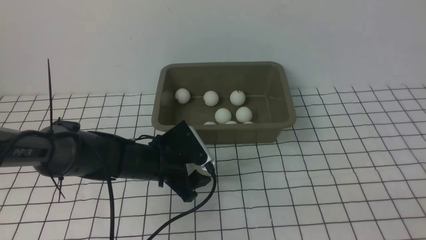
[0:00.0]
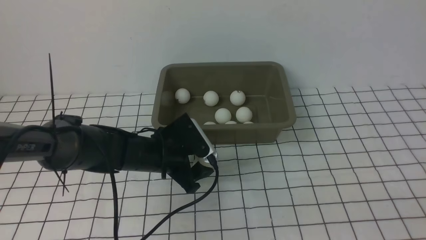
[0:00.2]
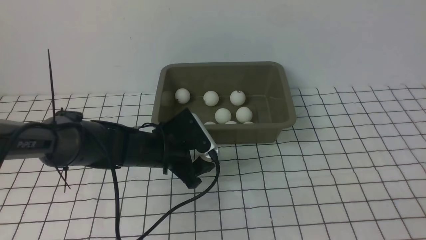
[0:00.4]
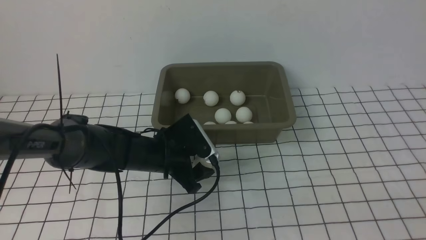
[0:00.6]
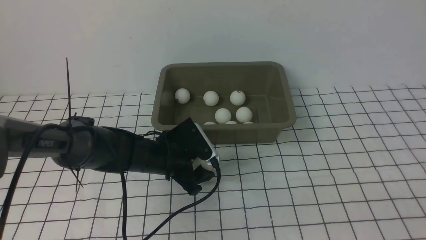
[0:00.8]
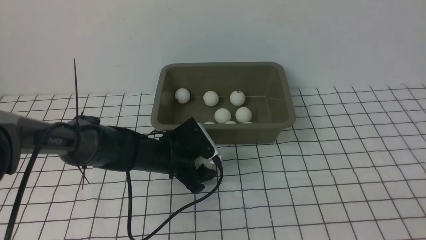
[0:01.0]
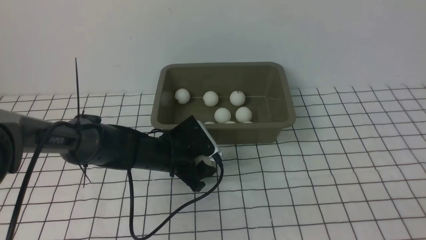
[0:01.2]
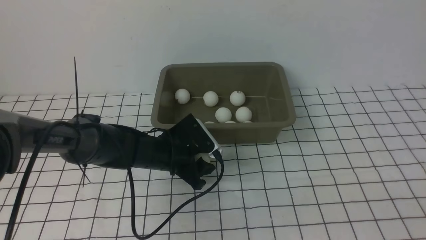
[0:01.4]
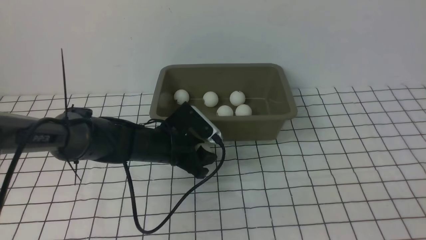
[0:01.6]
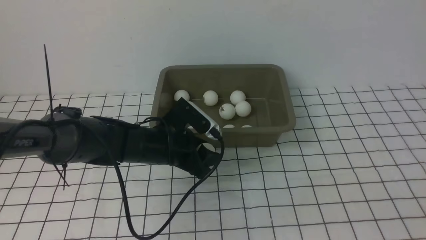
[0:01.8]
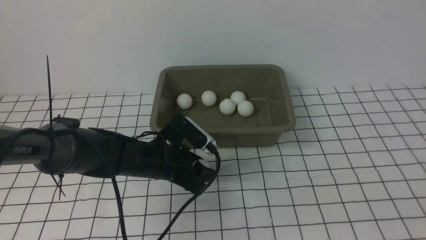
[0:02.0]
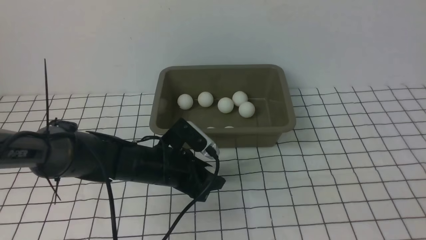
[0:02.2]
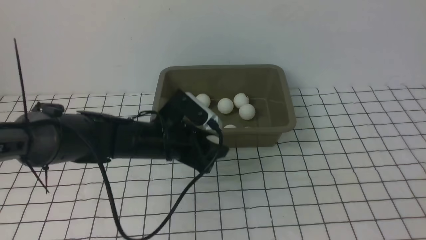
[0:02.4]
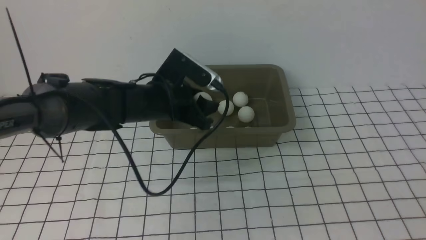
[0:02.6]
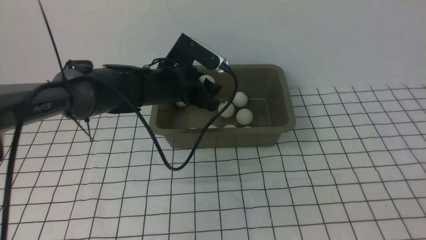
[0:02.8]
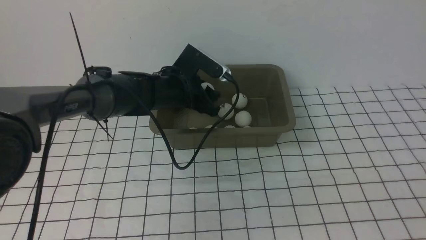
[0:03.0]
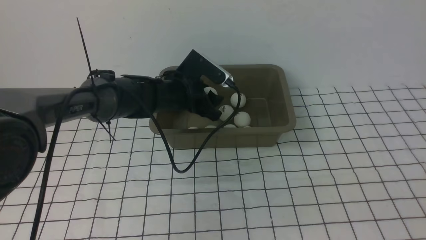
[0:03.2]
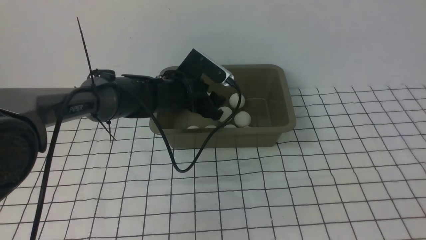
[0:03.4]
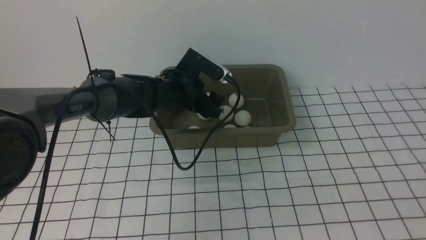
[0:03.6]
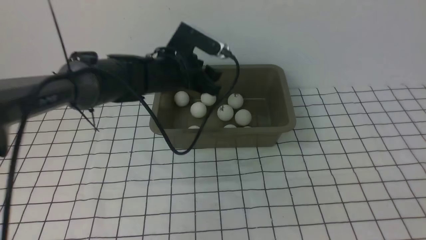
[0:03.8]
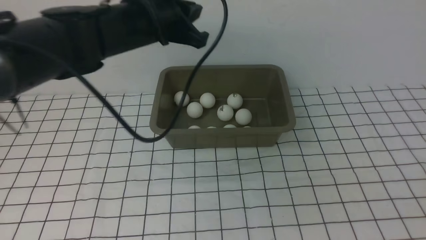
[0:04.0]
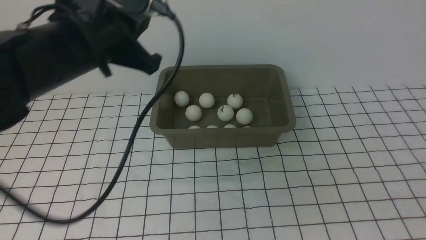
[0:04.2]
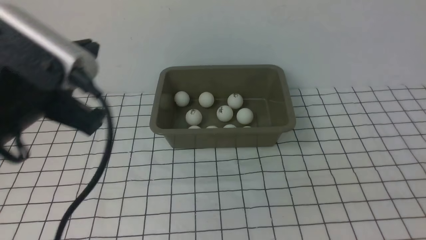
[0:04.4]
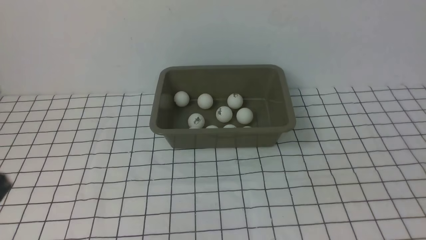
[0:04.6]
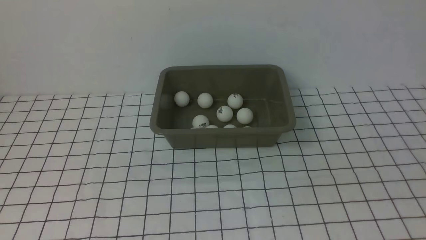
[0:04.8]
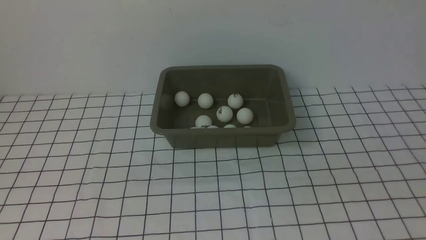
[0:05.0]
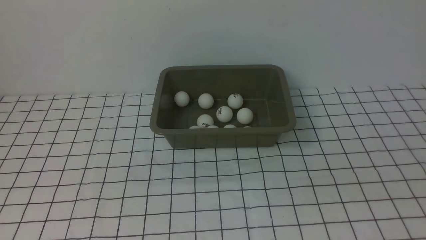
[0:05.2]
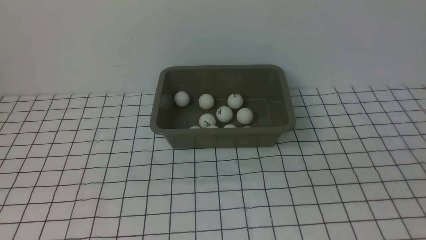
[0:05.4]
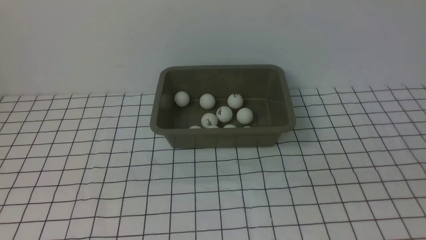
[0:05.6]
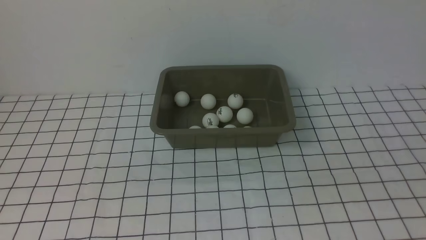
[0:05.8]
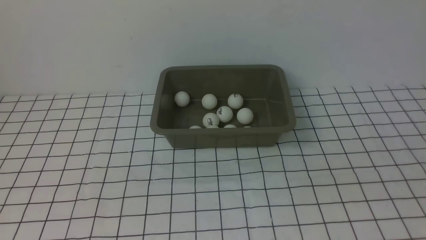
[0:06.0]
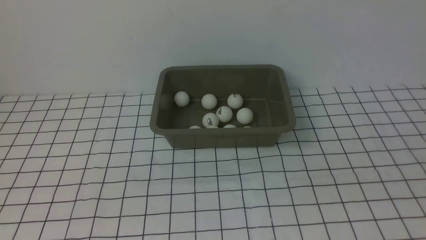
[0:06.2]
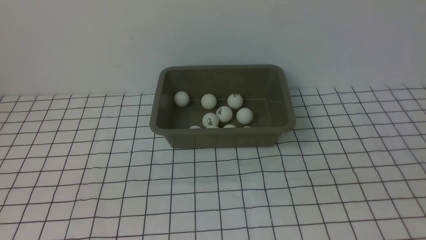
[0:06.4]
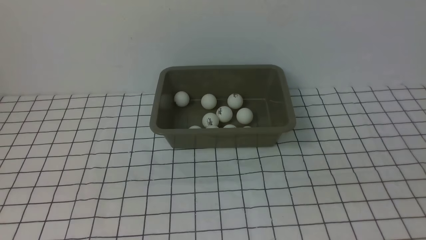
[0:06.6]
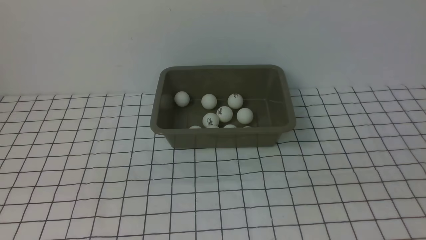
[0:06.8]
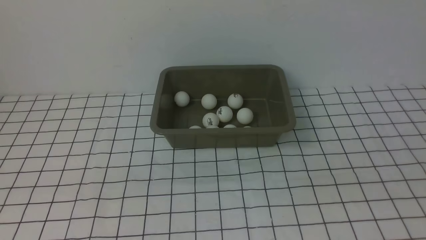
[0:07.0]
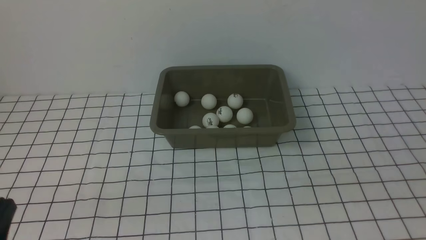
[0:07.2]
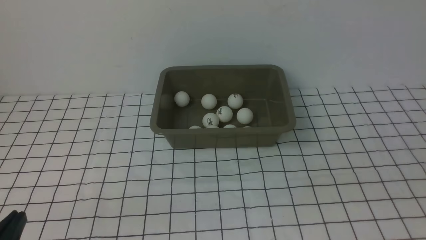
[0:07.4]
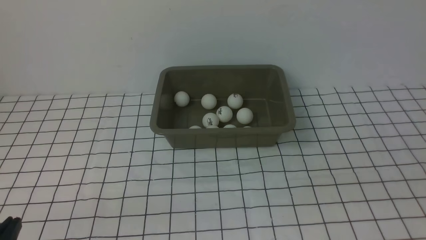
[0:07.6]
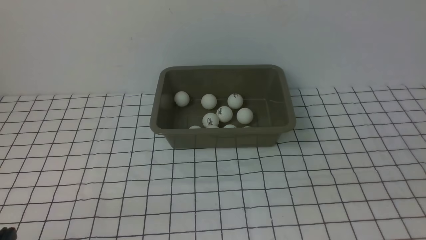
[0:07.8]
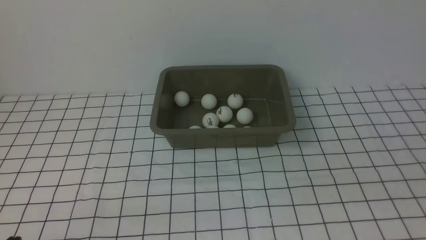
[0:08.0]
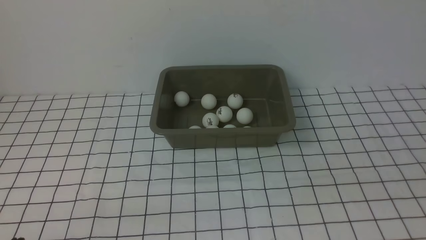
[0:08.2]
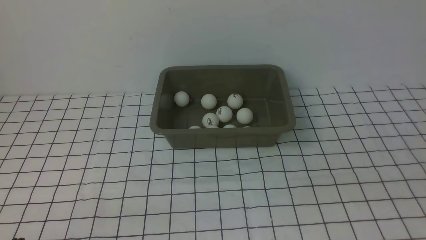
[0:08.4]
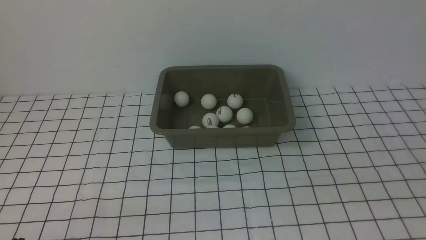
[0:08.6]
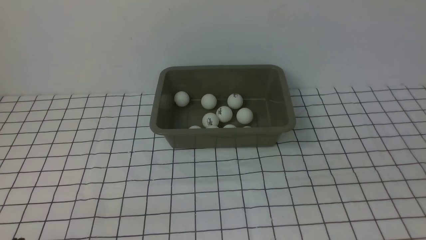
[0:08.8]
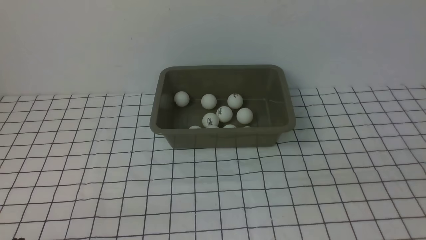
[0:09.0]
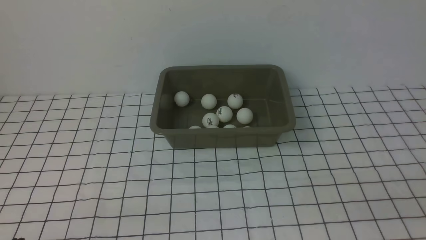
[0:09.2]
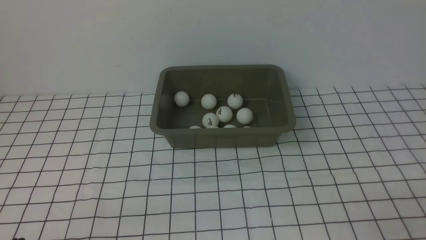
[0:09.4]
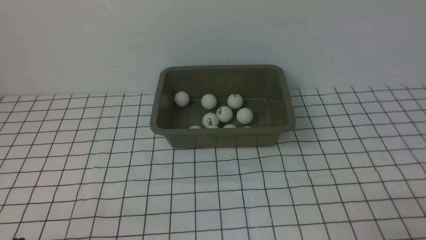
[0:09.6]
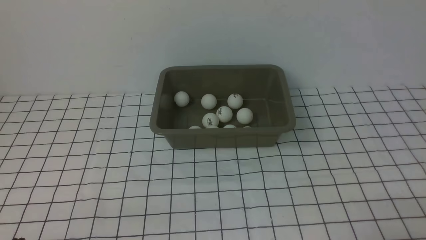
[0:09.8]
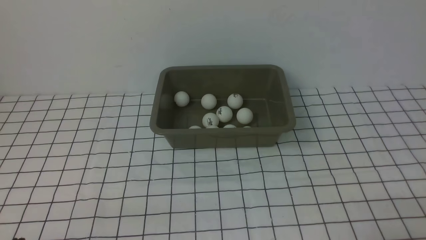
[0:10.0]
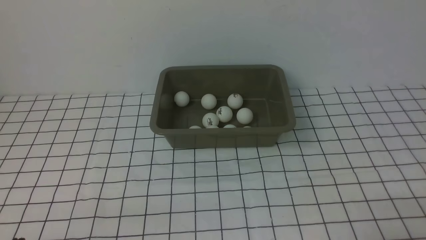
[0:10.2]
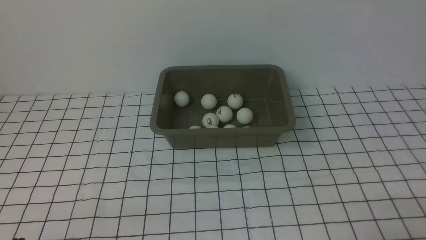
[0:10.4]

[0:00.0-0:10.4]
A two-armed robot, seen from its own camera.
Step, 0:02.2 to 0:03.6: use the left arm to put the table tennis ball into the box.
0:00.0 to 0:01.4: The grippers make only small movements.
0:01.4 to 0:03.0: The left gripper travels forward and upward by about 10 cm.
0:03.0 to 0:04.4: The left gripper is displaced backward, upward and to the left by roughly 35 cm, and closes.
0:04.4 to 0:06.0: The left gripper is displaced backward, to the left and downward by about 20 cm.

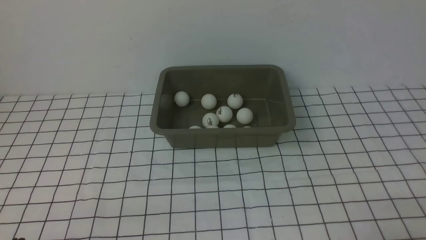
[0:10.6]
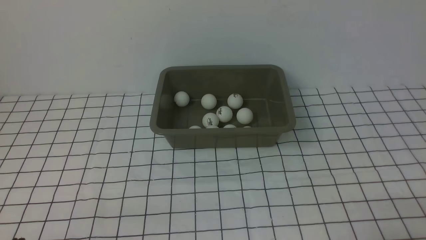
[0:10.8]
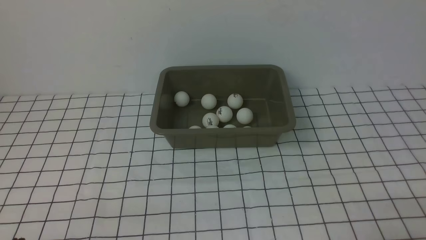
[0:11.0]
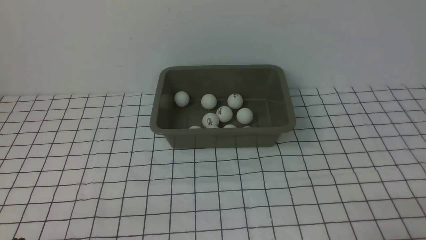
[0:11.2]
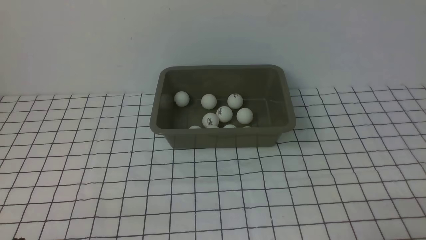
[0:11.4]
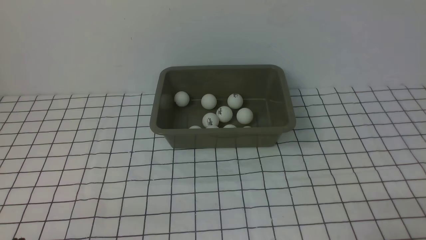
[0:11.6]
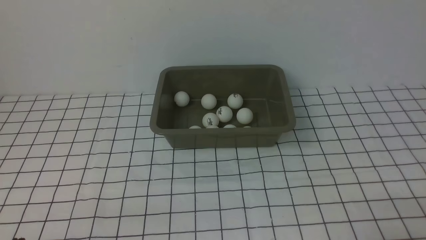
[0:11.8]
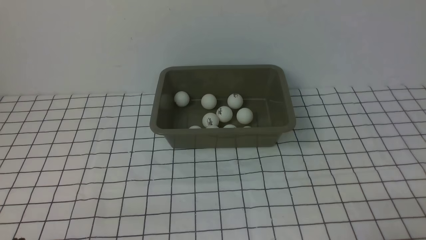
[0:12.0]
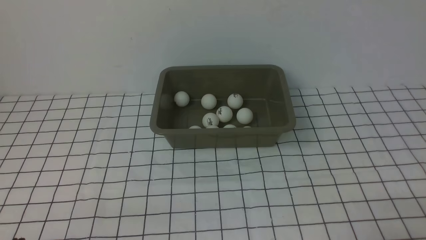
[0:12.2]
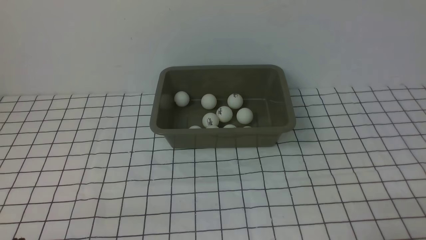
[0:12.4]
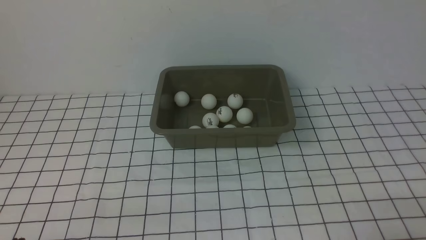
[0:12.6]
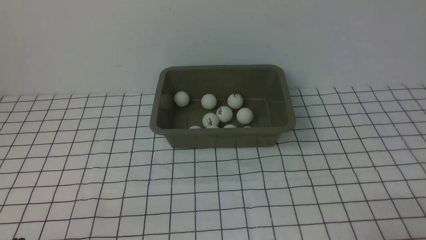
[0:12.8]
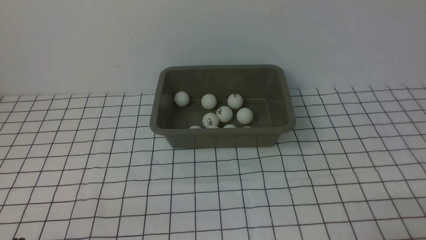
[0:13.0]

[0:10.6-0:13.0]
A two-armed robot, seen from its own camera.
0:10.6 to 0:13.0: Both grippers stay about where they are.

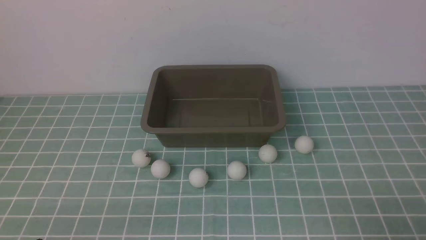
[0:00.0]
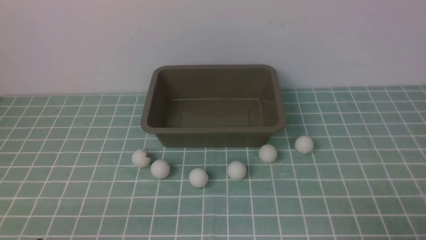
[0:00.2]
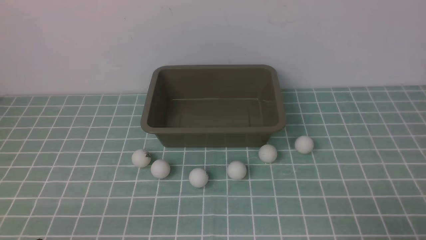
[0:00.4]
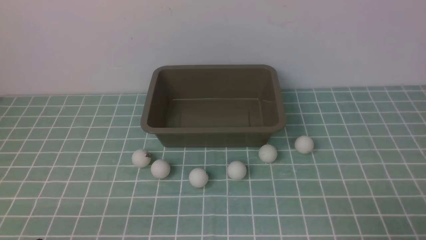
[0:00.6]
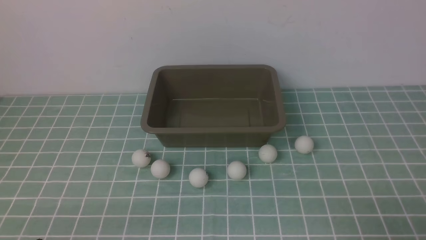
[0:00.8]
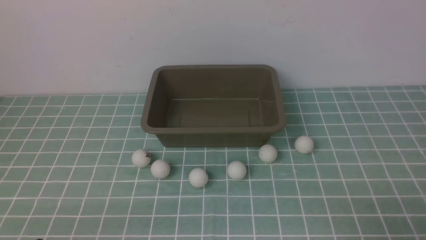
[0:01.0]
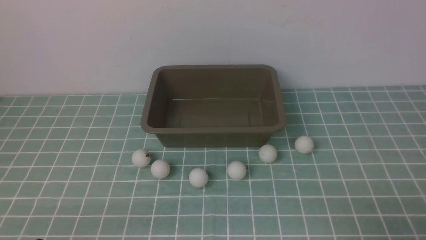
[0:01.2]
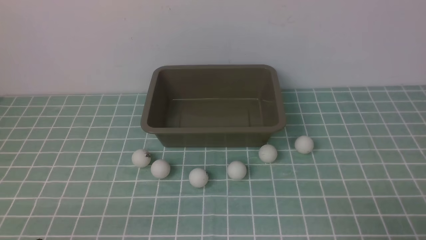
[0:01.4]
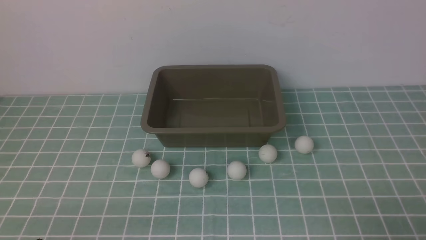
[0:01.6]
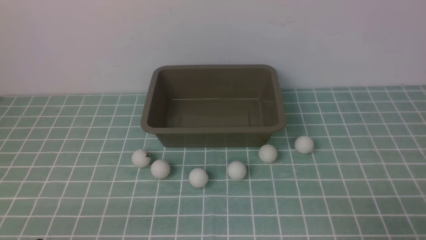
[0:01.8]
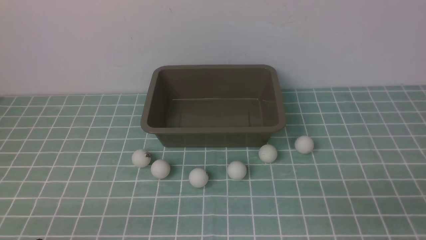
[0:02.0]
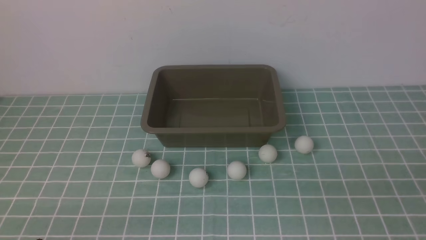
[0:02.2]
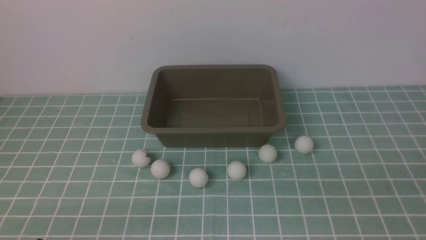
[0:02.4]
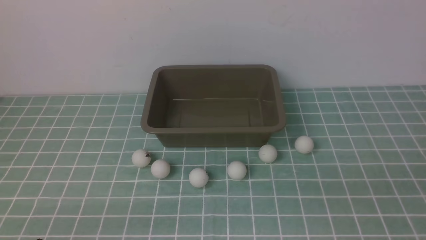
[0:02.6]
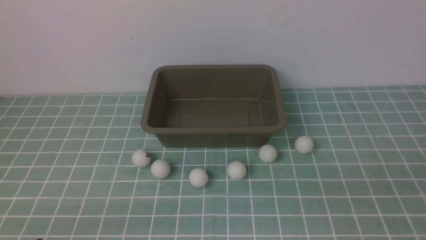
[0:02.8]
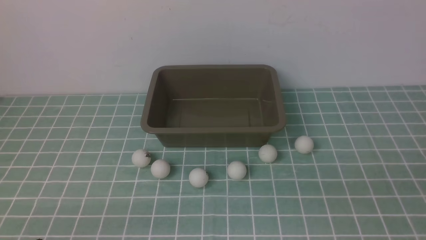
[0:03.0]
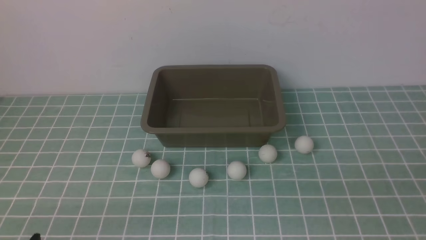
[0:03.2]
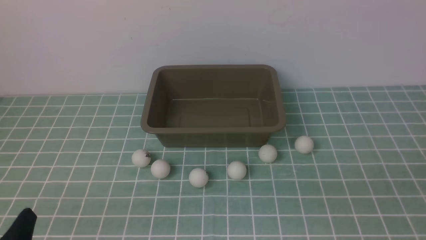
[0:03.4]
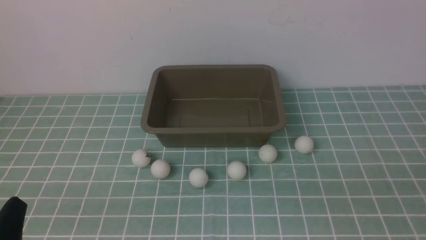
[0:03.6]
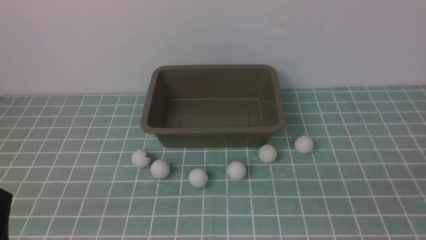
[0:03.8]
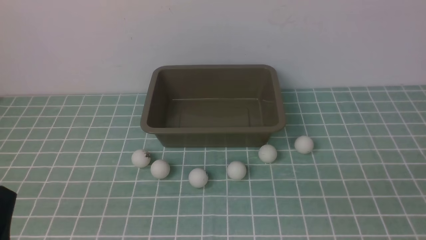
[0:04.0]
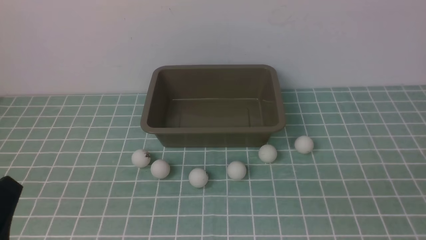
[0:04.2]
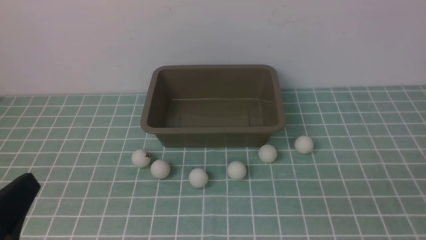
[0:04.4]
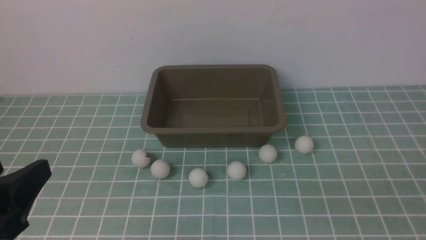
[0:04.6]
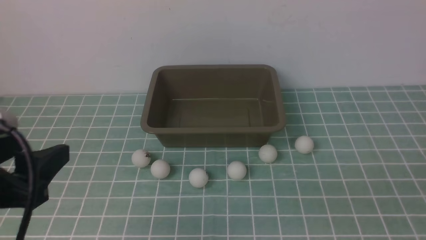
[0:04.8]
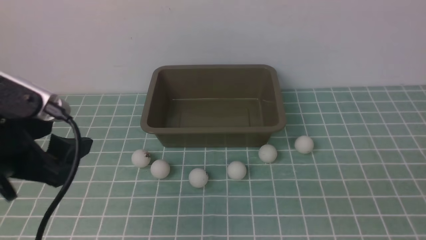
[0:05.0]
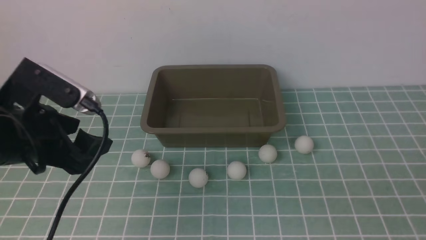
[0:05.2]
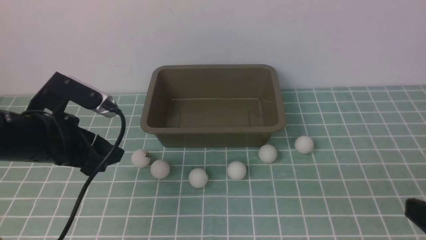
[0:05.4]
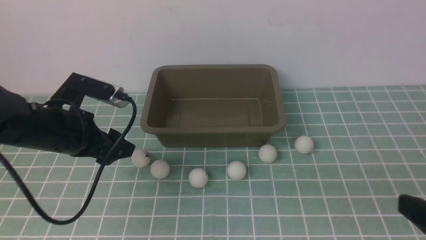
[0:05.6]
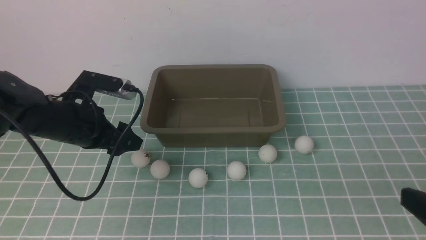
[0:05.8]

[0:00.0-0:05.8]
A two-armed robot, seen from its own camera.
0:00.0 to 0:01.4: Neither gripper changes place.
0:02.8 to 0:04.4: The left gripper is displaced upward by about 10 cm.
0:04.4 to 0:05.8: The left gripper goes about 30 cm forward. Meanwhile the right gripper is displaced forward by roughly 10 cm.
